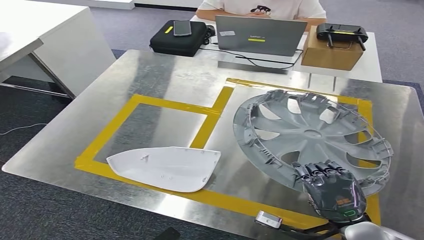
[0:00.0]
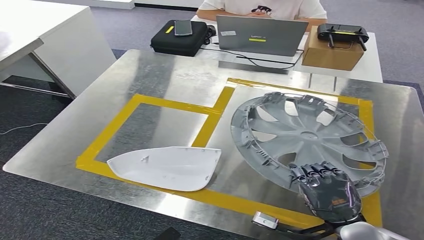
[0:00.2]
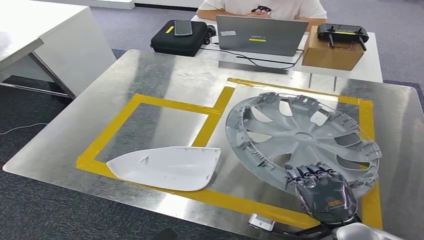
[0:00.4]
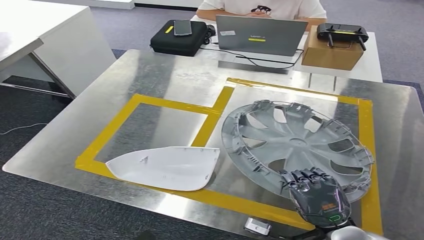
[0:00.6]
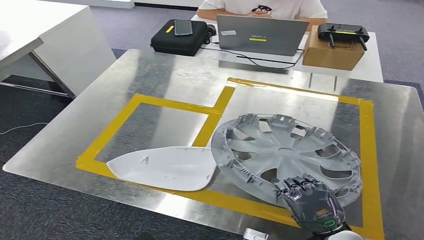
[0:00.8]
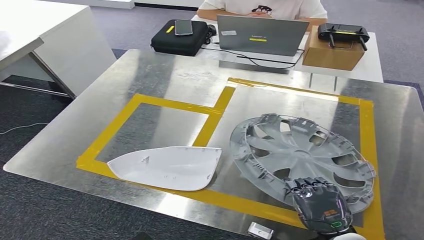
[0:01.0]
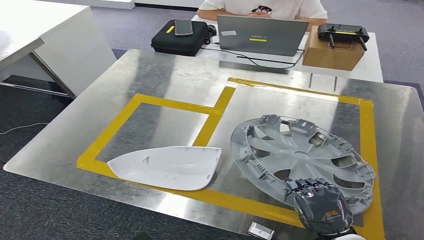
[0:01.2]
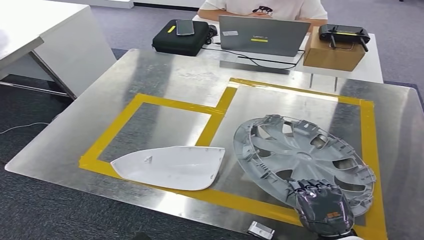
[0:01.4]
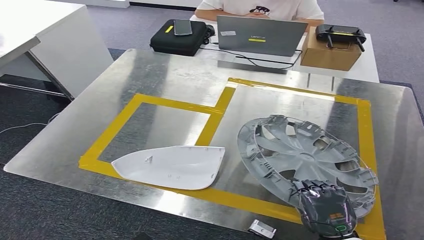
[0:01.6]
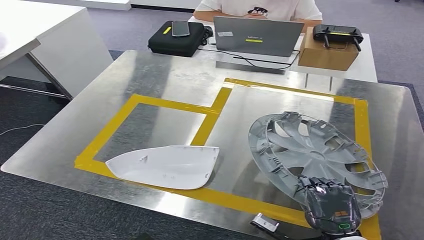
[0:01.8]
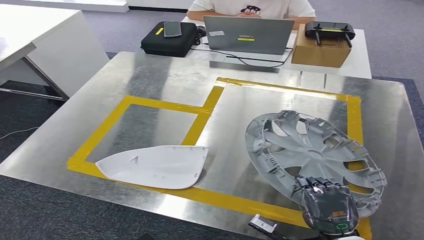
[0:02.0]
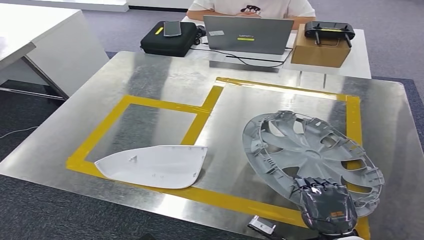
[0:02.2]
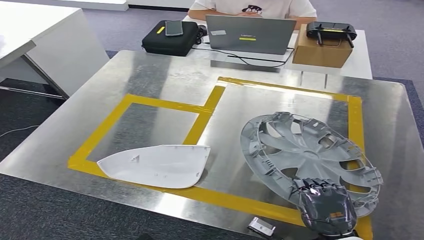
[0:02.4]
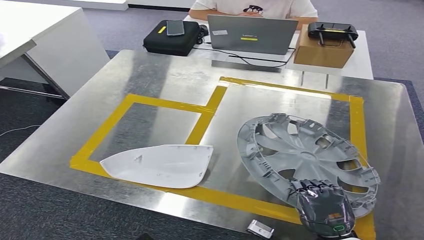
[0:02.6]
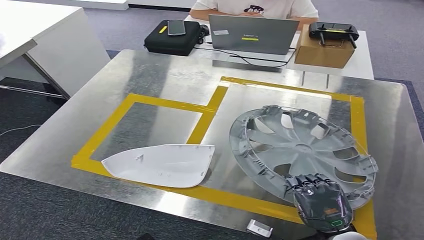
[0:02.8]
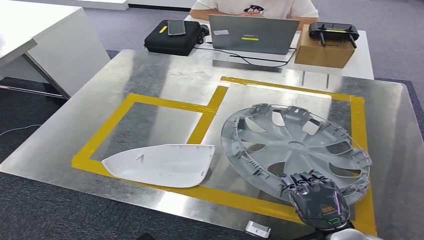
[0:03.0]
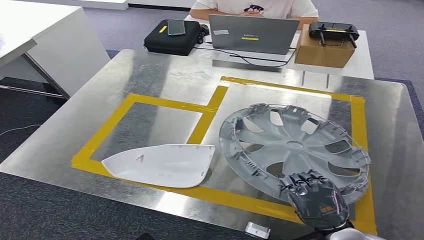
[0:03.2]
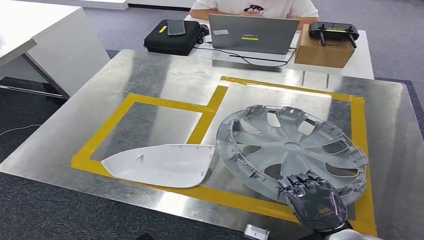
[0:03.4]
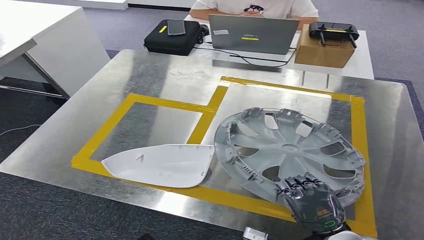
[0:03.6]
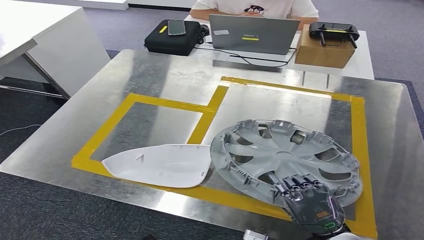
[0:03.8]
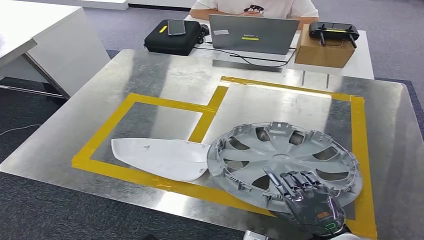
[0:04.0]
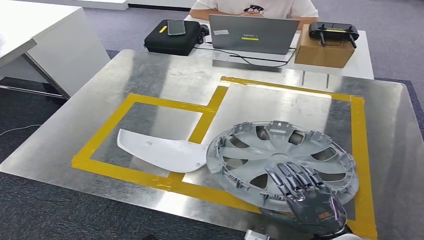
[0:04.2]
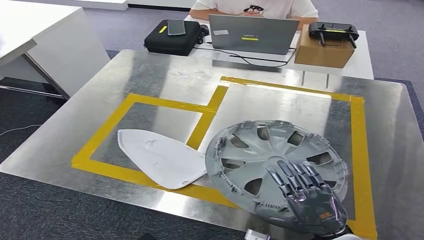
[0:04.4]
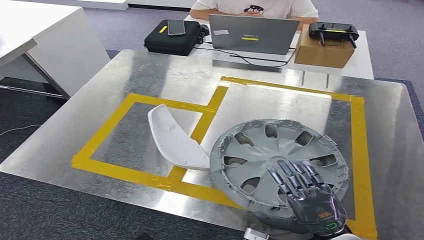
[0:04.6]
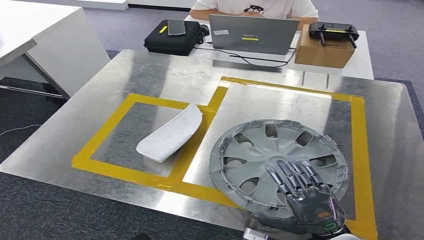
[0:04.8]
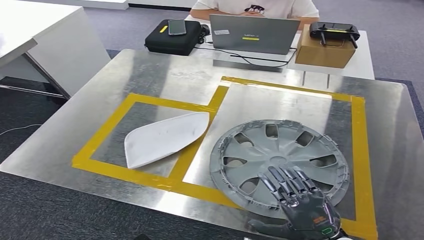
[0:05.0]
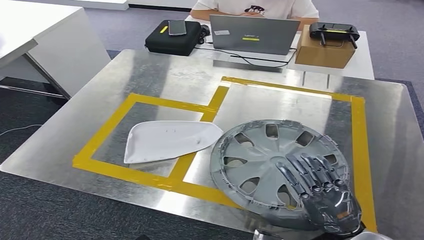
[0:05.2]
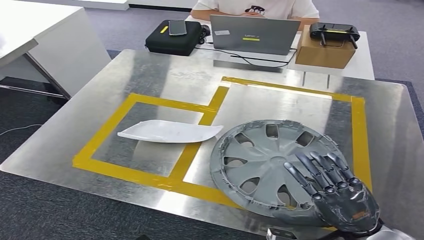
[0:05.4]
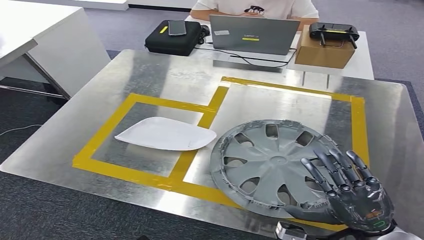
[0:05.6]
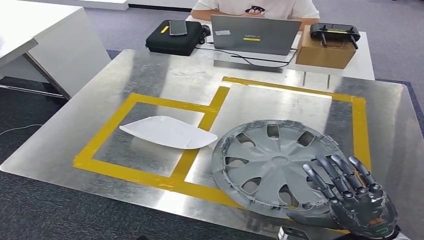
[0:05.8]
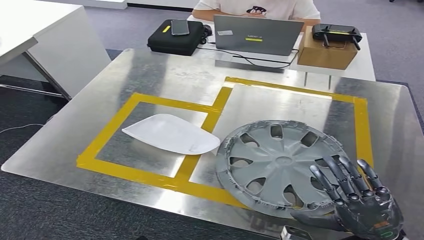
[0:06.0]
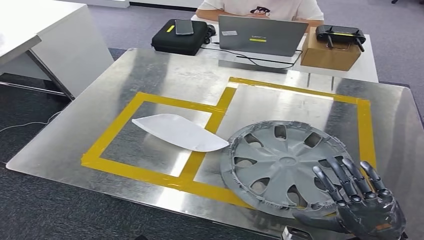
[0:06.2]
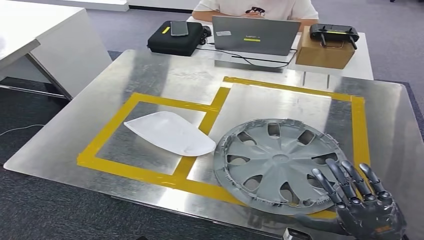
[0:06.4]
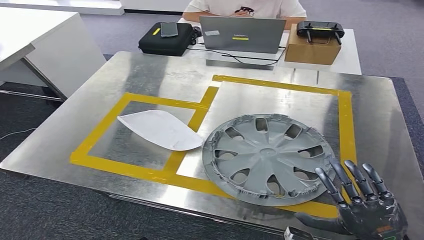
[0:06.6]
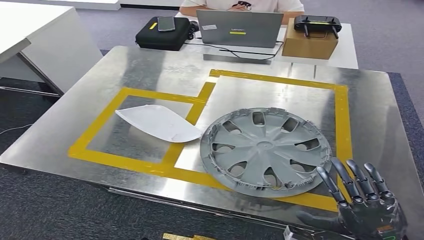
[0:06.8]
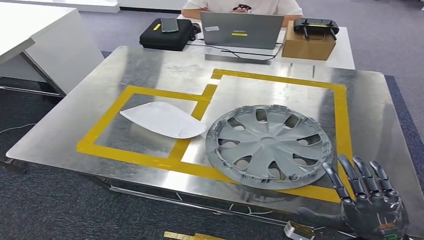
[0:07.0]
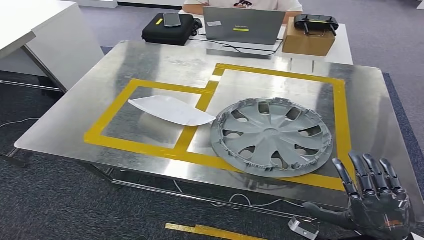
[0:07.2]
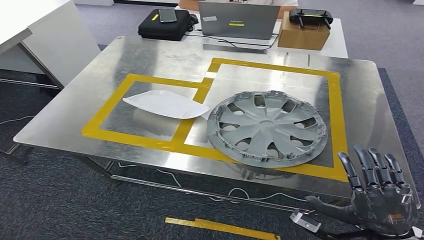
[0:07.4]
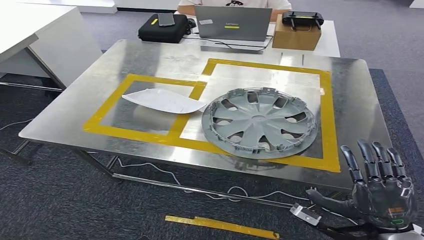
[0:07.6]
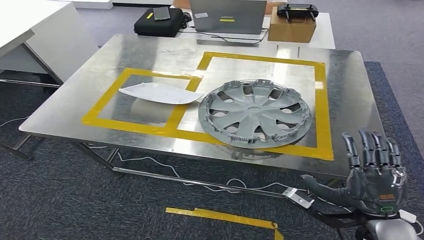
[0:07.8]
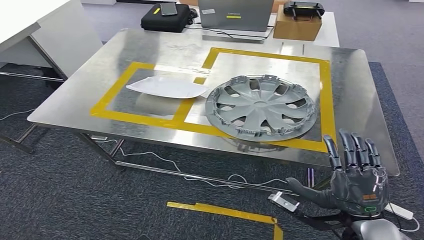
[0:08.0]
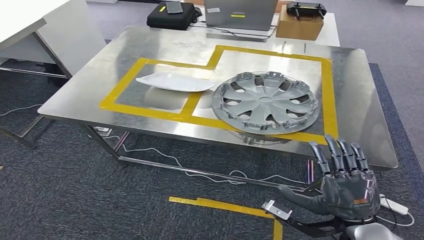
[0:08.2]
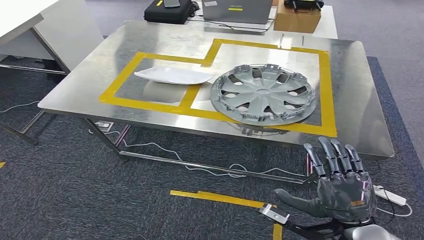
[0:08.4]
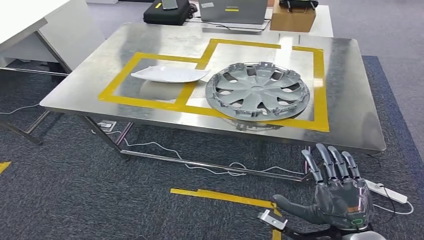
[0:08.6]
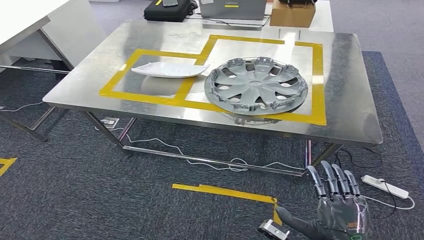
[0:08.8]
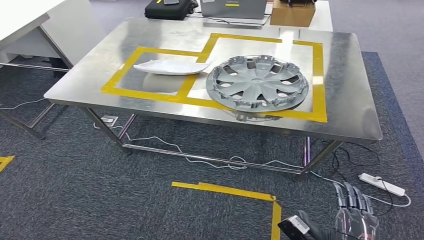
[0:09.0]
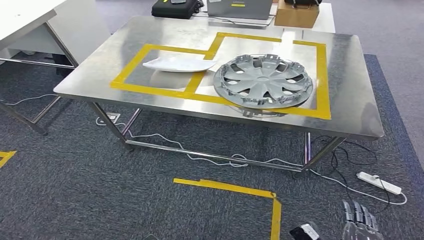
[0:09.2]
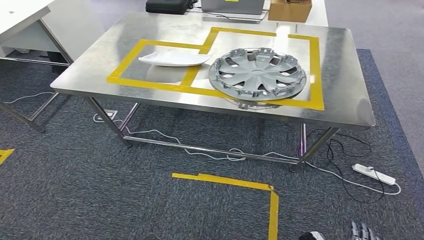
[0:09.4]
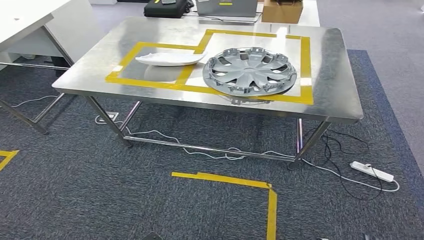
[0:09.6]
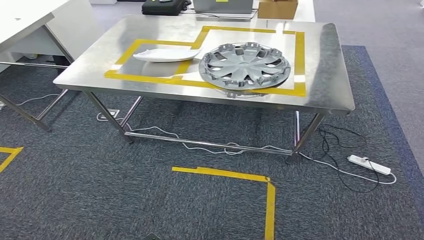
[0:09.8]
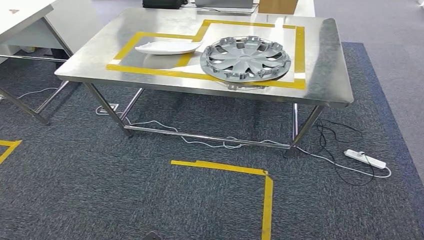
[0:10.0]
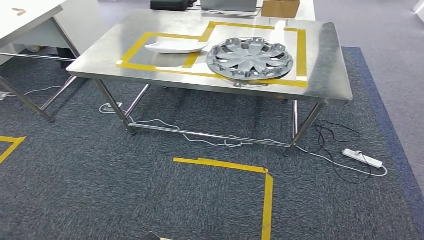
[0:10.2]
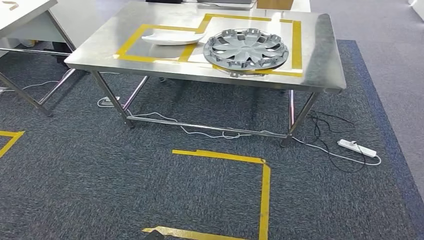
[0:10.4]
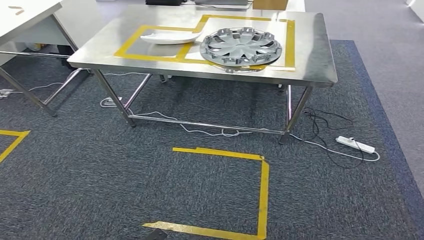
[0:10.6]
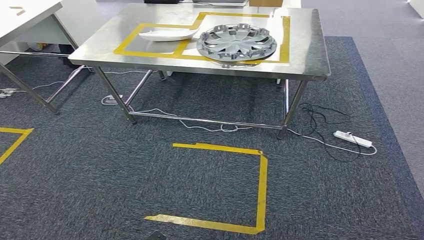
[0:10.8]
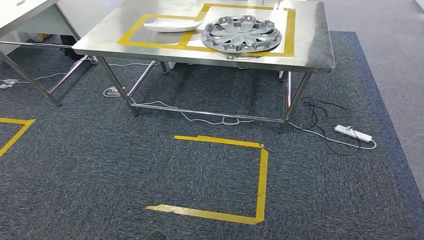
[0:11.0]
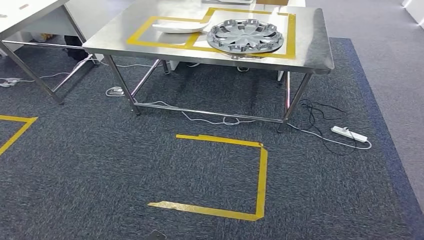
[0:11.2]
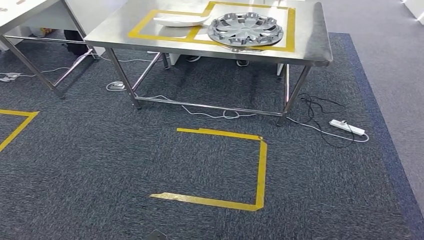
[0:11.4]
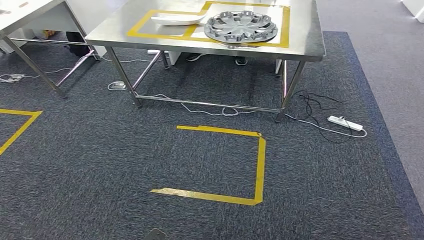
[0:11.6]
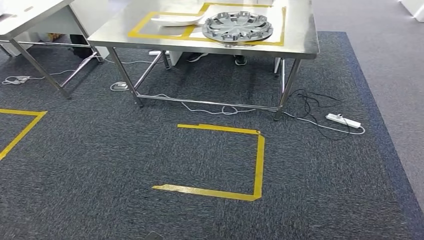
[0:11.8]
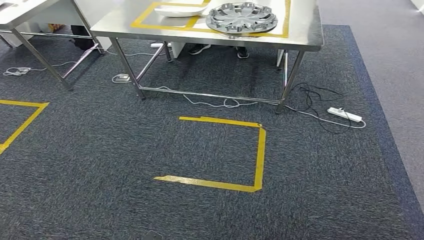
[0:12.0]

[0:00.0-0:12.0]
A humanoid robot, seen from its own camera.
Step, 0:00.0 to 0:11.4: Insert the small parts into the corresponding holes on the workbench.
0:00.0 to 0:01.6: The right hand ends up about 5 cm from where it was, while the left hand is displaced to the left by approximately 5 cm.
0:03.0 to 0:04.4: There are only small adjustments of the hands.

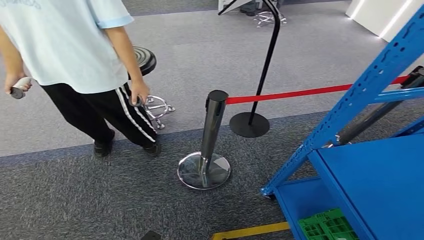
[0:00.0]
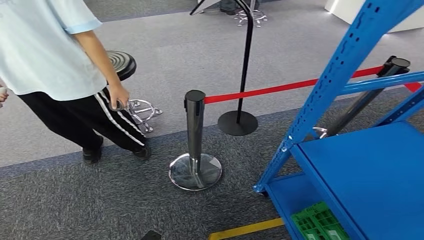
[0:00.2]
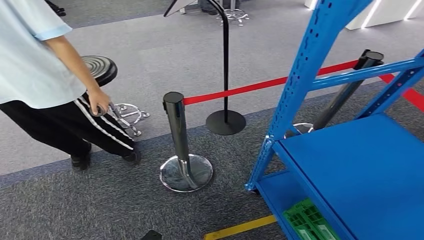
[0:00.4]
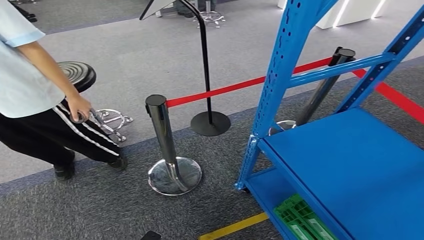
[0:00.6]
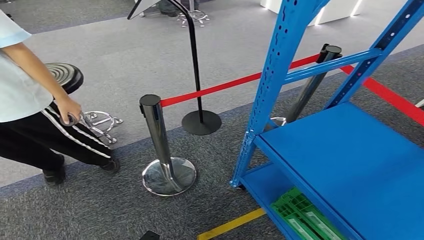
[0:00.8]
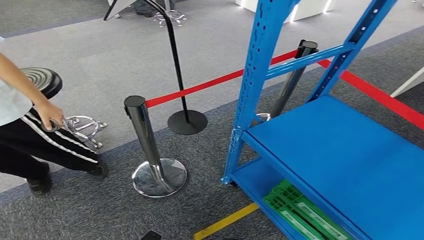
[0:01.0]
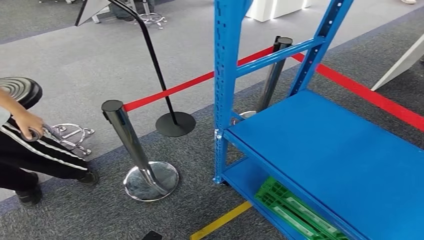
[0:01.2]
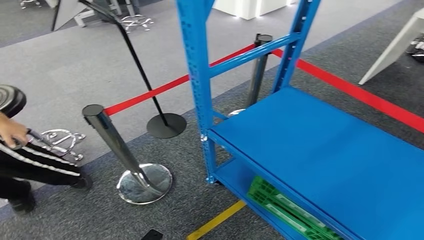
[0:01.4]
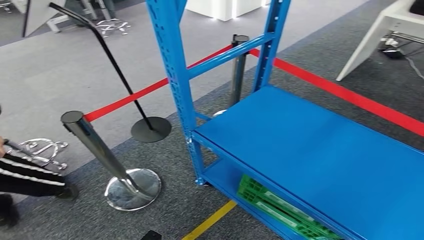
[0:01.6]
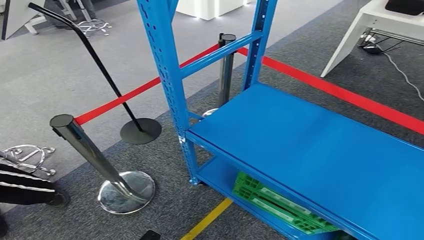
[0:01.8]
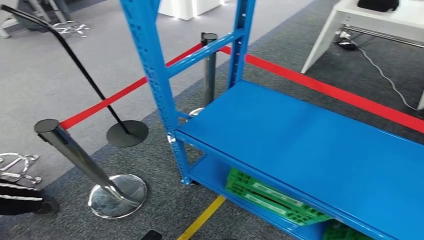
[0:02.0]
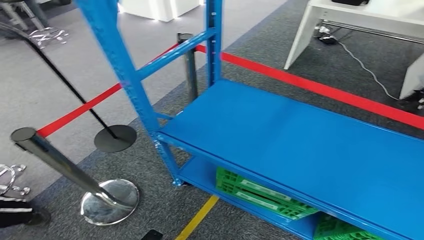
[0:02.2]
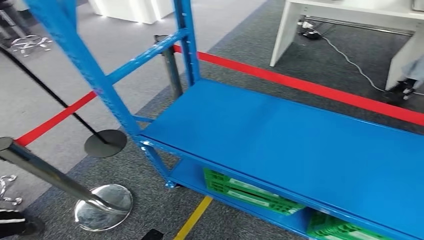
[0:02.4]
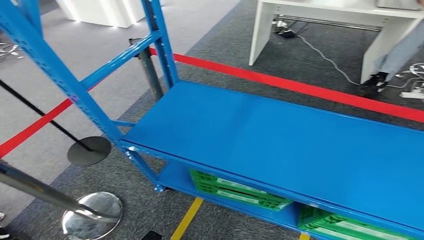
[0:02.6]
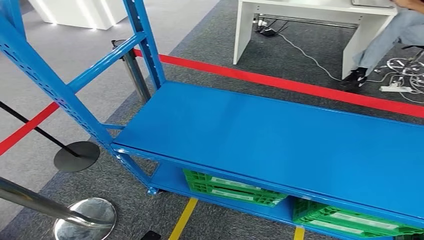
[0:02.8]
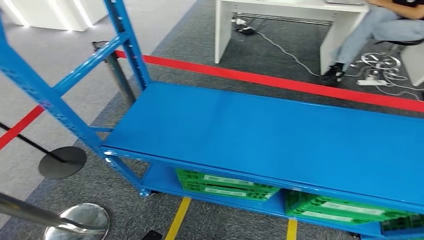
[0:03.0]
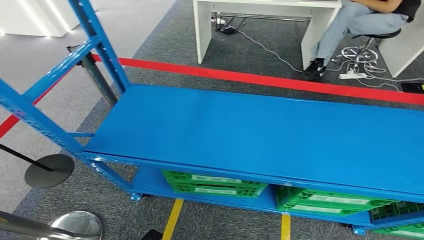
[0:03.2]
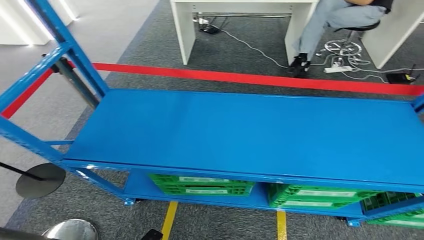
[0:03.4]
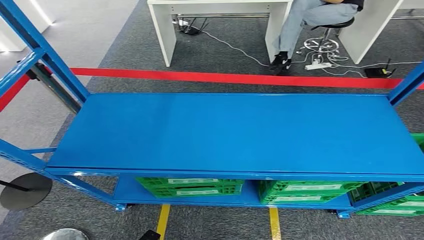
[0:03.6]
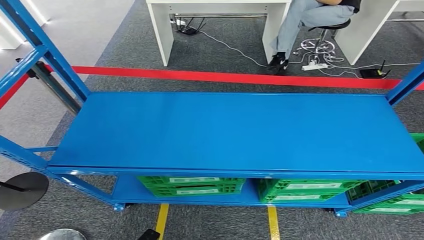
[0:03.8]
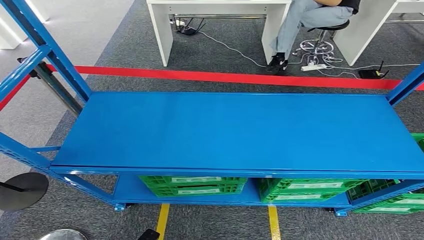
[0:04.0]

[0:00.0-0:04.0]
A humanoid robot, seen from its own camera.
Step, 0:00.0 to 0:04.0: Move to the initial position of the workbench.

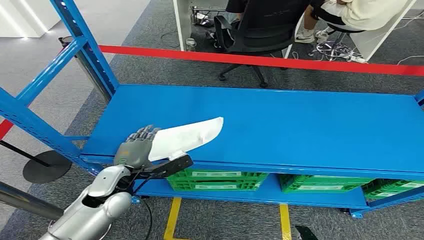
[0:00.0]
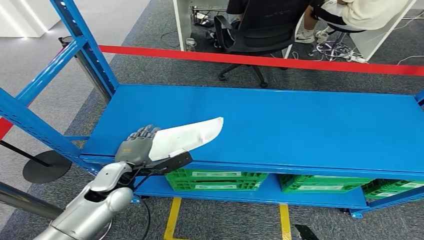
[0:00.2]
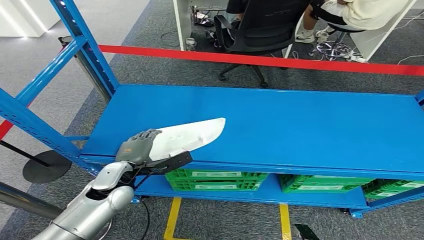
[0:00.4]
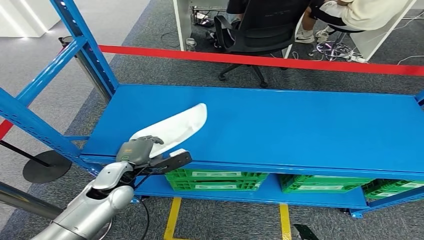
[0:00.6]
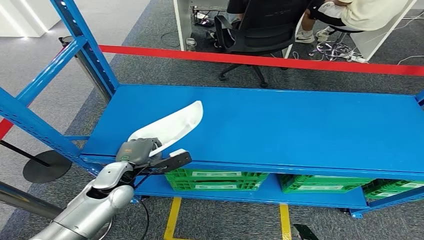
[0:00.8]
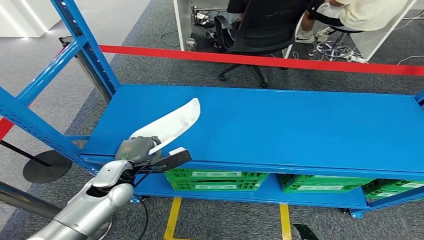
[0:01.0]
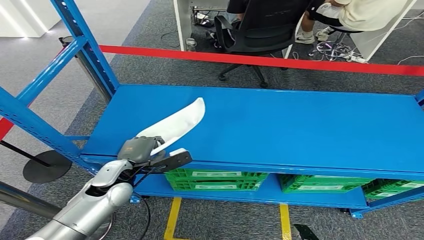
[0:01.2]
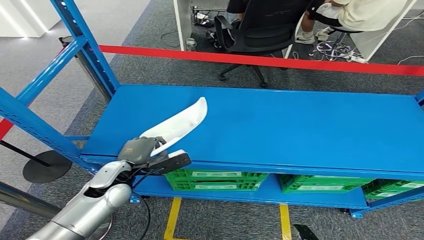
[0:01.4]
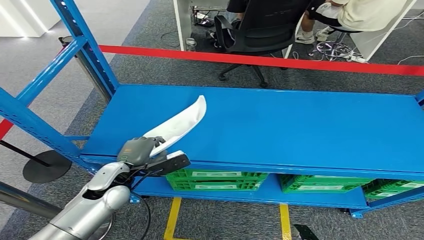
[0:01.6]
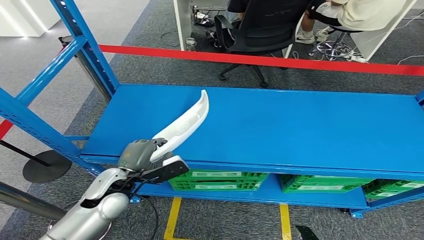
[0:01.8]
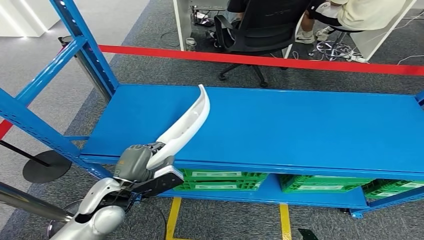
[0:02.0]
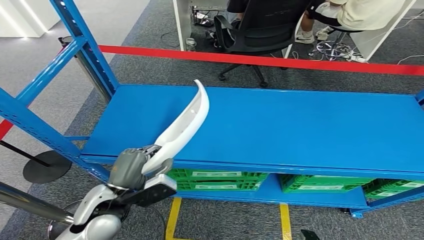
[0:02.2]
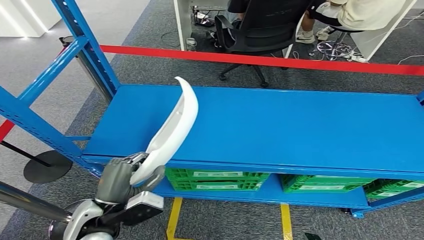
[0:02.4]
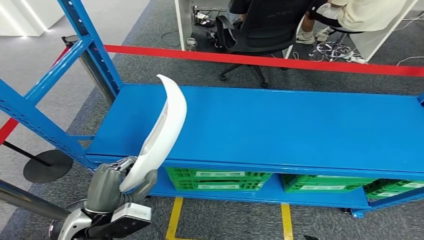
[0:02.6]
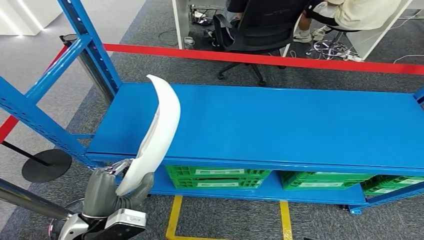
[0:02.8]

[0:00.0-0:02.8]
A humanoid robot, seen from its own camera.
Step, 0:00.0 to 0:02.4: Take small components from the rack.
